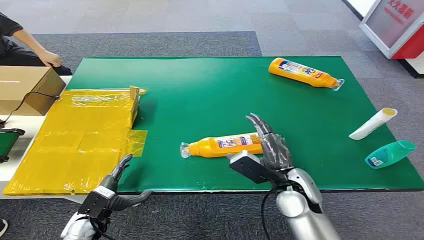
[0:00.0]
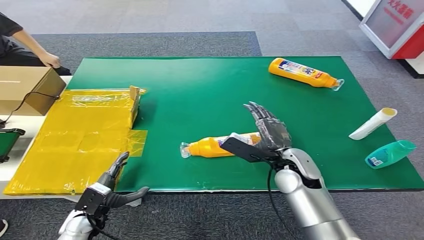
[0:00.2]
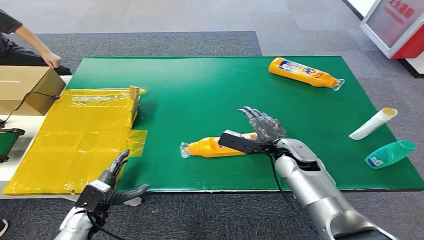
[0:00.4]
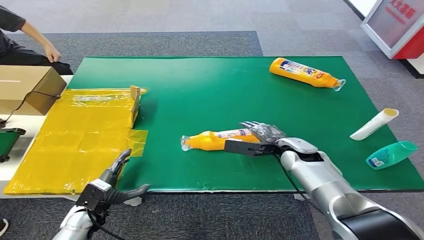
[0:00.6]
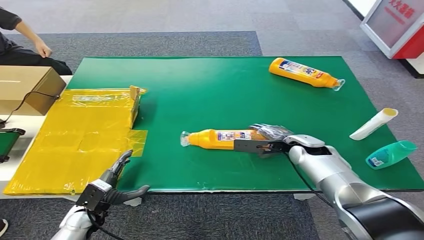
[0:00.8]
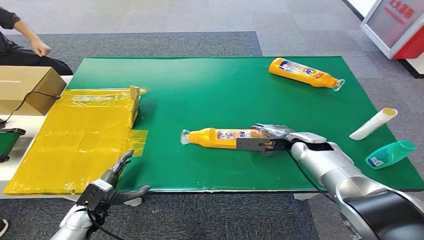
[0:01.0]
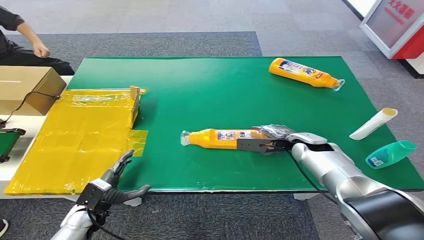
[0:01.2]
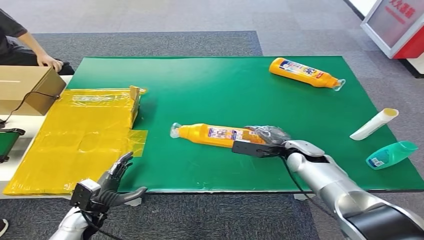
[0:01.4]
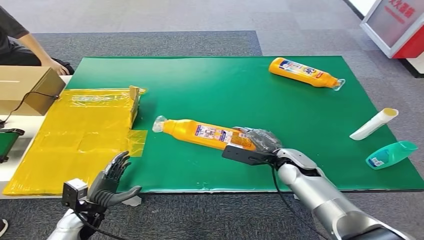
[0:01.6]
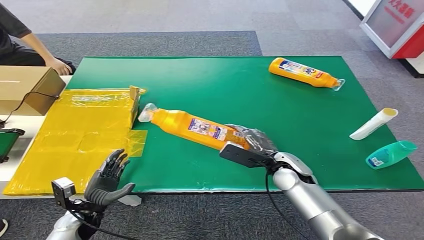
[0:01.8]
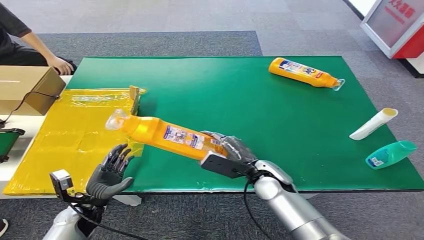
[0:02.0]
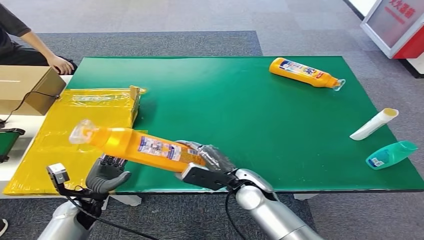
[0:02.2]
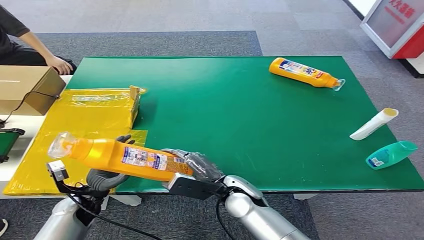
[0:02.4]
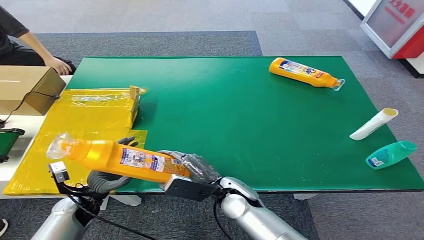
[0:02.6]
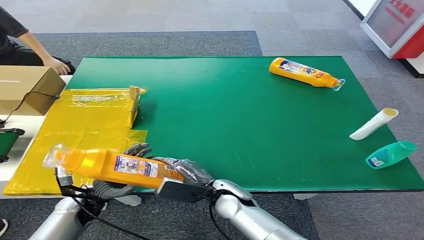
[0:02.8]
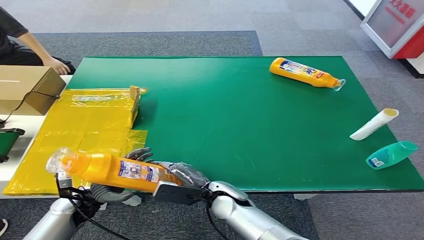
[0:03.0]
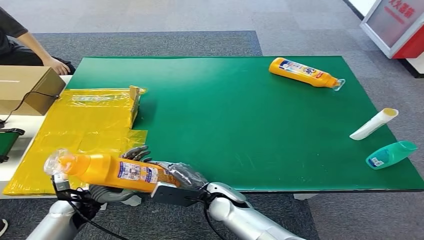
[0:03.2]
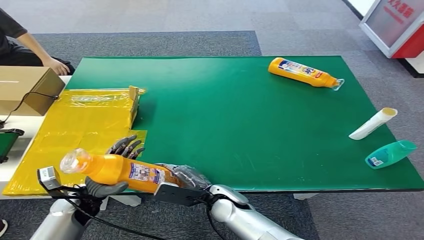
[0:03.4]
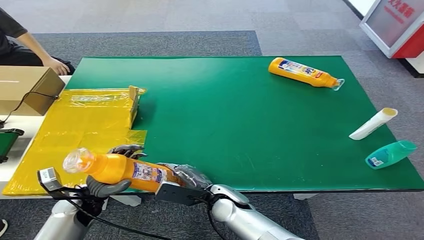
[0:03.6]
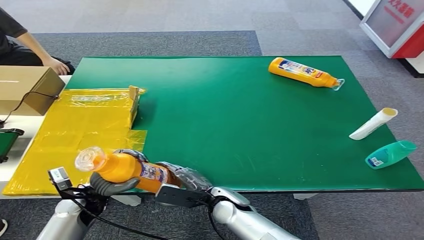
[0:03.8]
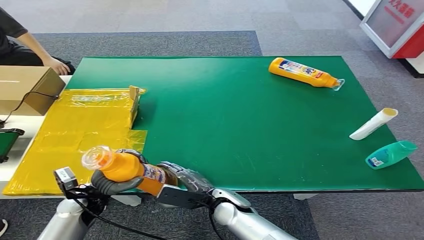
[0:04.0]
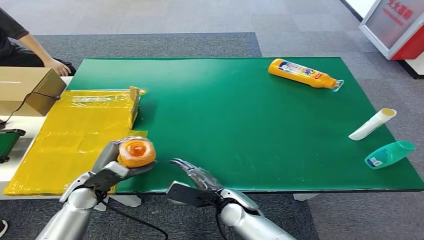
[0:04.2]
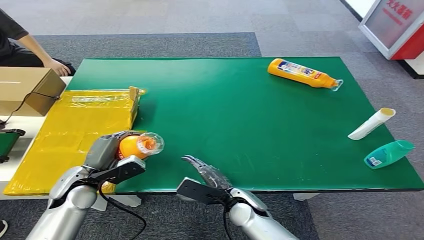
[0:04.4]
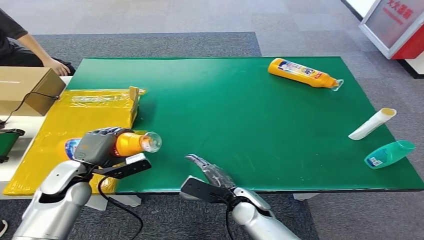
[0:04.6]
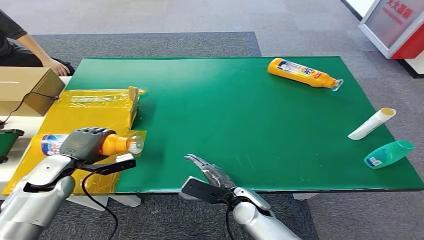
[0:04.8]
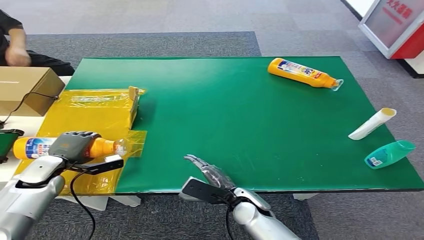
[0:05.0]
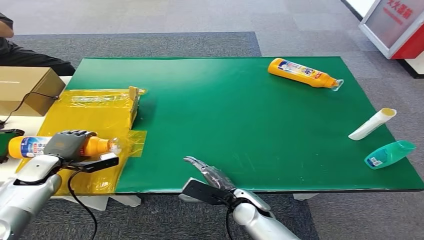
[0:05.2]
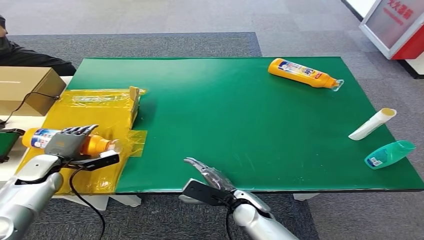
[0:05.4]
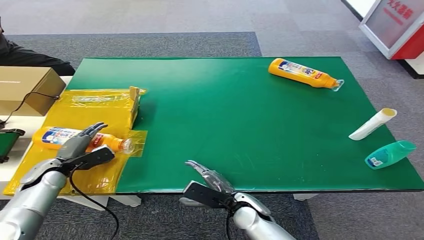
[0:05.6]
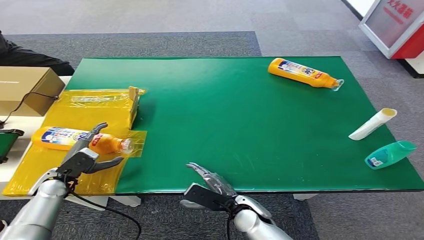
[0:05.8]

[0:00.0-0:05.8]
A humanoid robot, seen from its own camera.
Step, 0:00.0 to 0:01.8: Pick up the bottle from the table.
Step, 0:02.0 to 0:05.8: Turn the bottle to the front side.
0:01.4 to 0:02.8: The left hand changes place by about 5 cm, while the right hand is displaced to the left and backward by roughly 25 cm.
0:02.8 to 0:04.4: The right hand shifts by roughly 5 cm, while the left hand heads upward, covering some 10 cm.
0:04.4 to 0:05.8: The left hand moves to the left and downward, about 10 cm.
